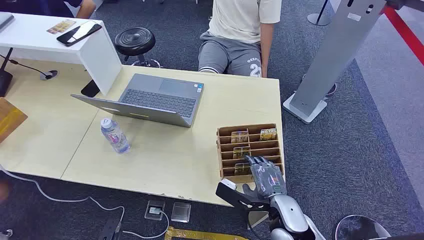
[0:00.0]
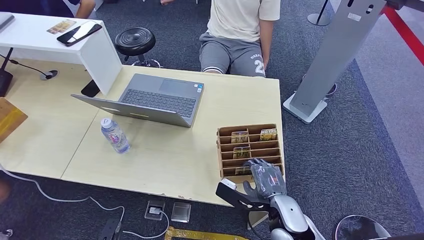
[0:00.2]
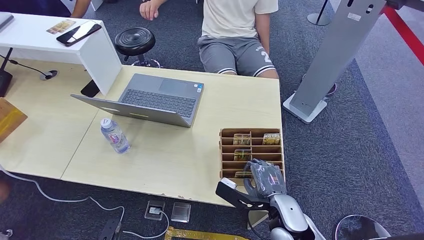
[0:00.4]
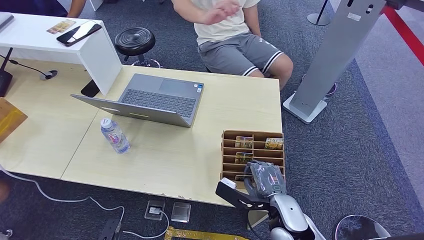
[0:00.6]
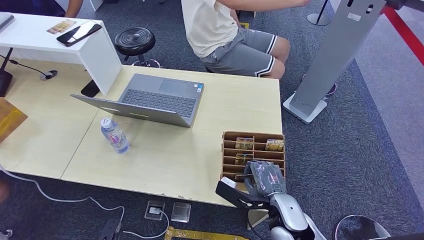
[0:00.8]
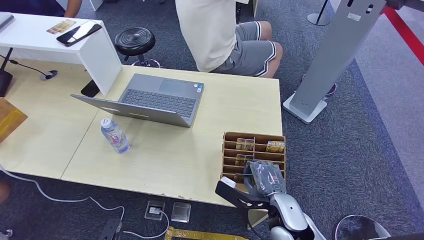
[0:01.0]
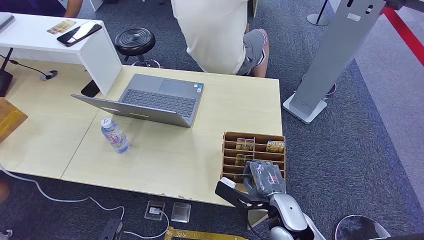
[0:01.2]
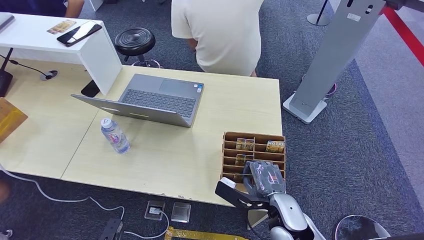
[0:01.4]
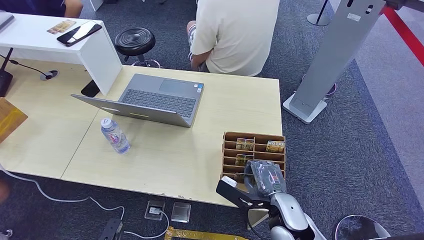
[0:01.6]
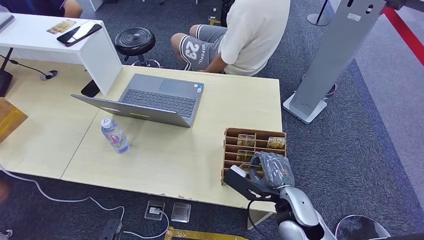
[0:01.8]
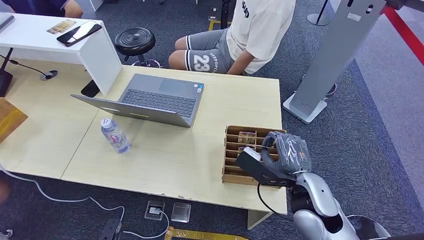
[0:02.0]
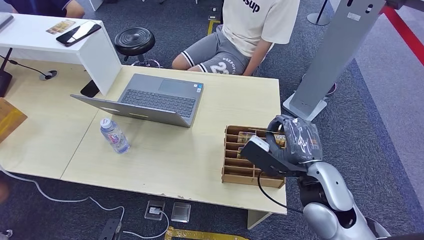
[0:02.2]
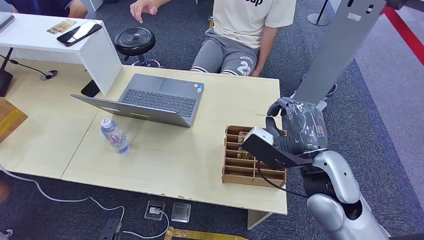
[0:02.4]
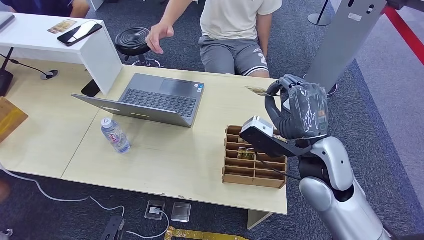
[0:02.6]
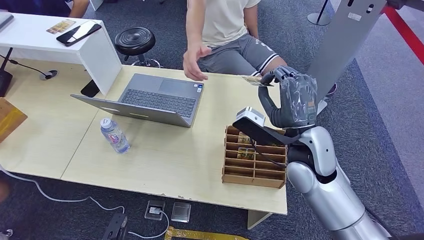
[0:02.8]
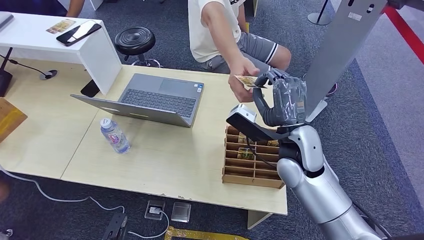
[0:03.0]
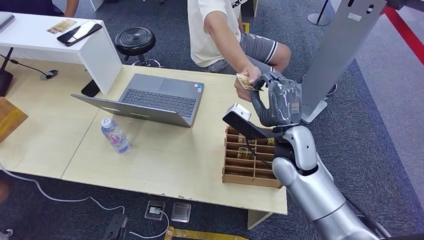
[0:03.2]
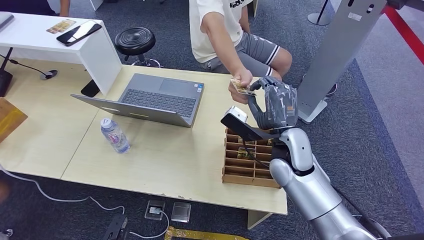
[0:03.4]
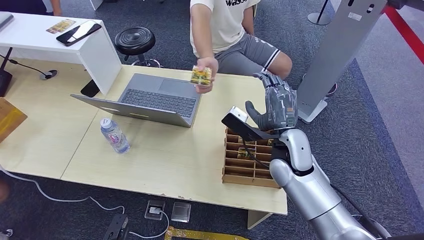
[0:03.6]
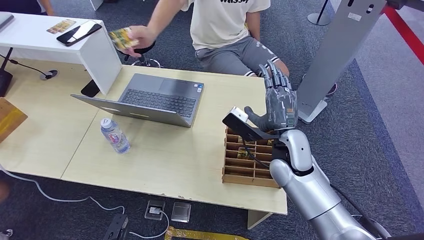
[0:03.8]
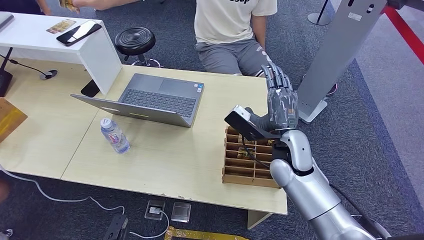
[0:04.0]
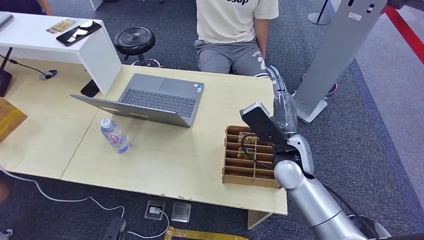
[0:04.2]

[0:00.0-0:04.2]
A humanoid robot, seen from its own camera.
Step, 0:00.0 to 0:02.2: Pick up the key card from the card box.
Step, 0:02.4 to 0:04.2: Hand the key card to the target.
0:01.4 to 0:02.8: The right hand shifts some 20 cm upward and forward.
0:02.8 to 0:04.2: The right hand goes about 5 cm downward.
